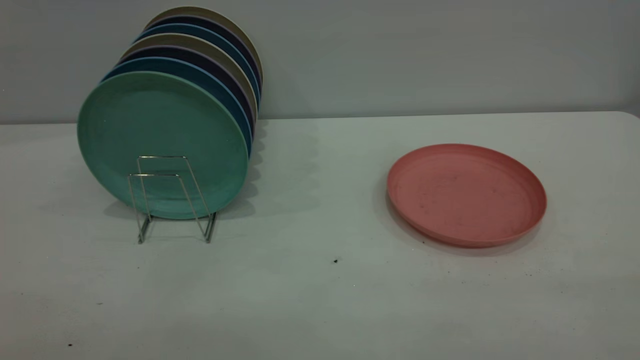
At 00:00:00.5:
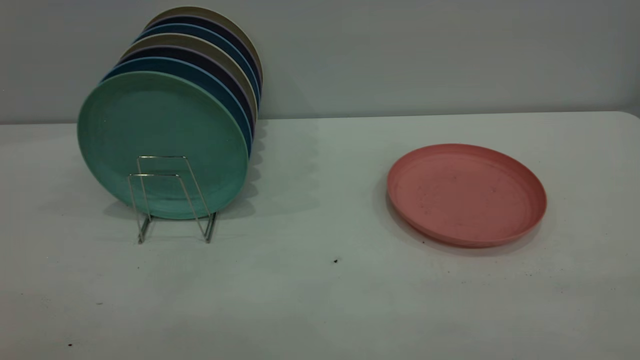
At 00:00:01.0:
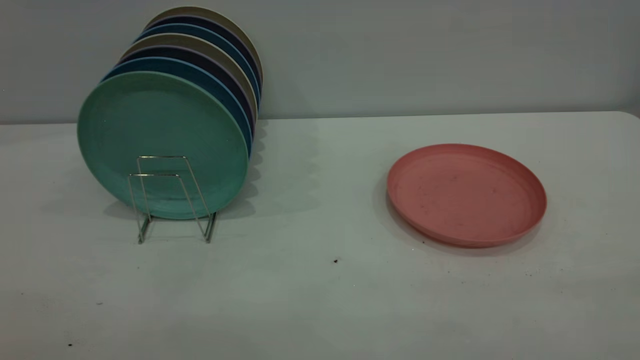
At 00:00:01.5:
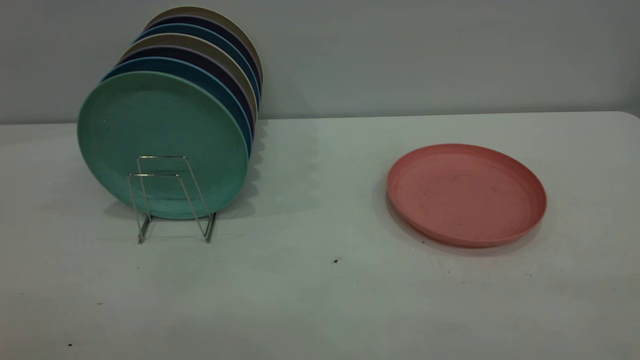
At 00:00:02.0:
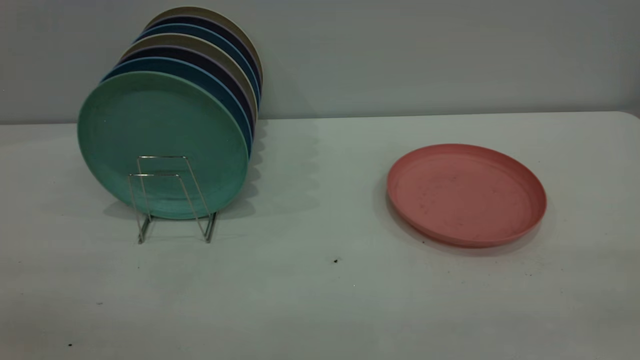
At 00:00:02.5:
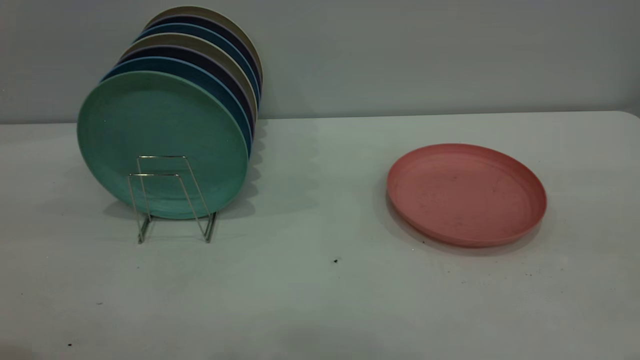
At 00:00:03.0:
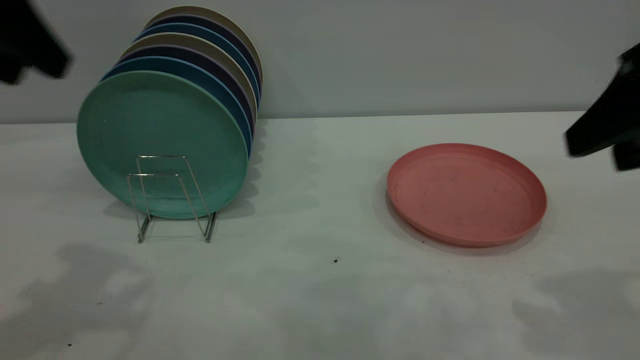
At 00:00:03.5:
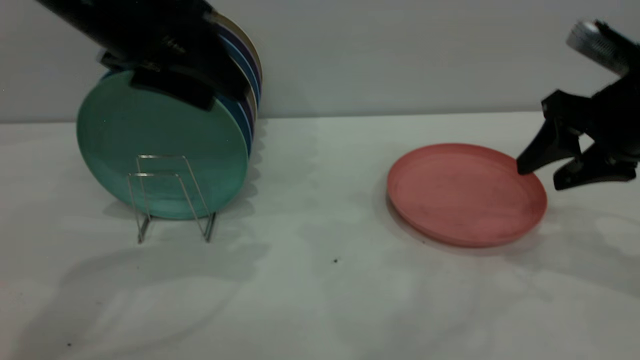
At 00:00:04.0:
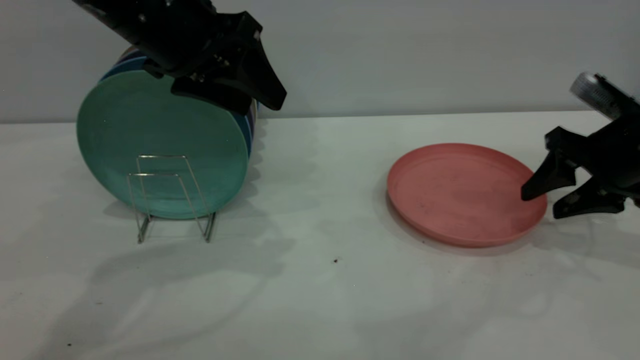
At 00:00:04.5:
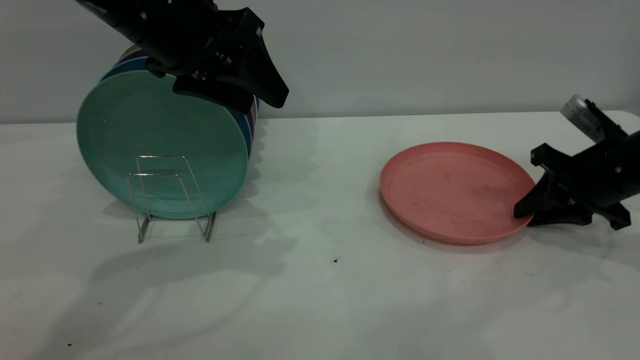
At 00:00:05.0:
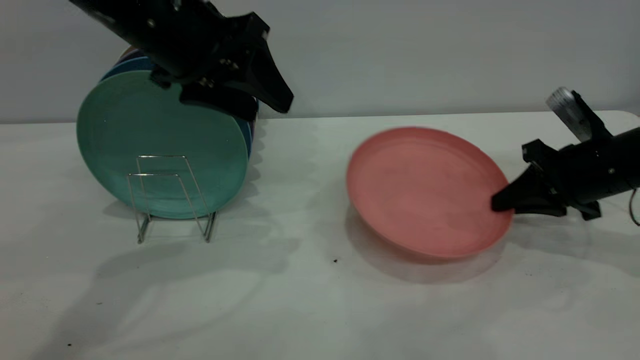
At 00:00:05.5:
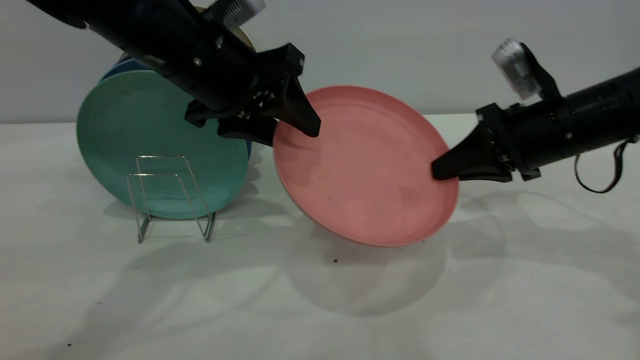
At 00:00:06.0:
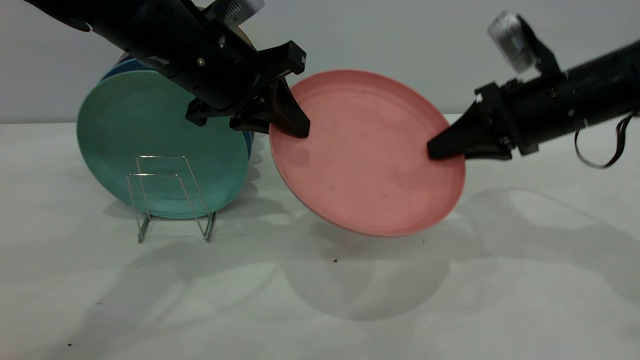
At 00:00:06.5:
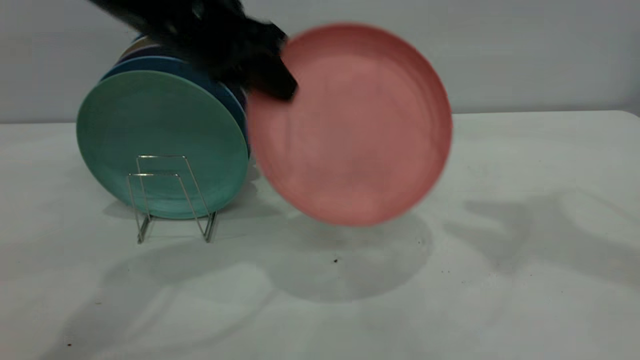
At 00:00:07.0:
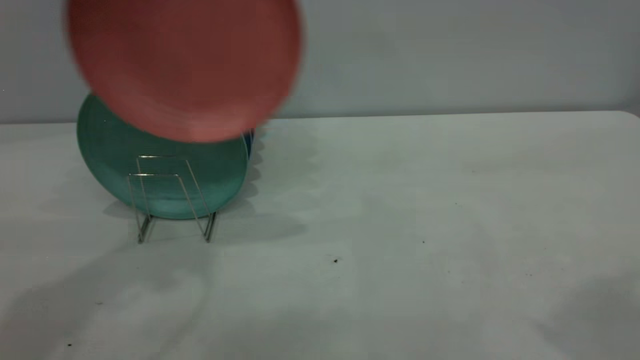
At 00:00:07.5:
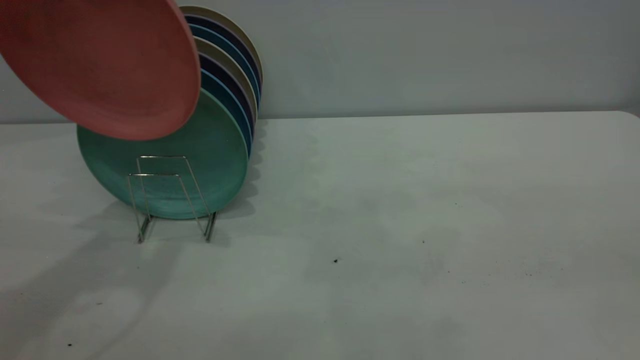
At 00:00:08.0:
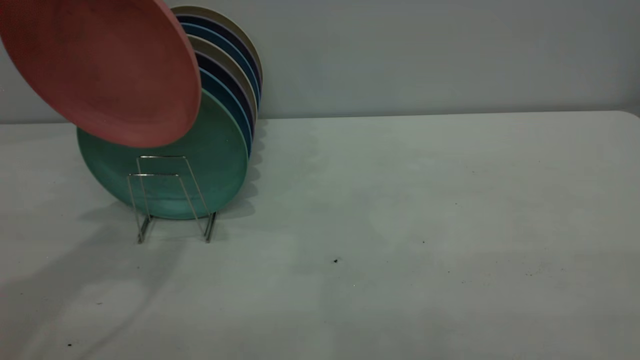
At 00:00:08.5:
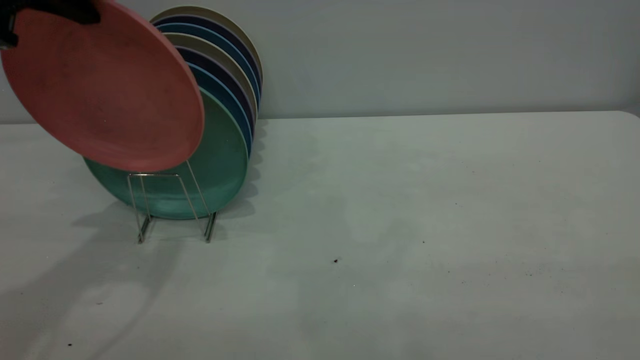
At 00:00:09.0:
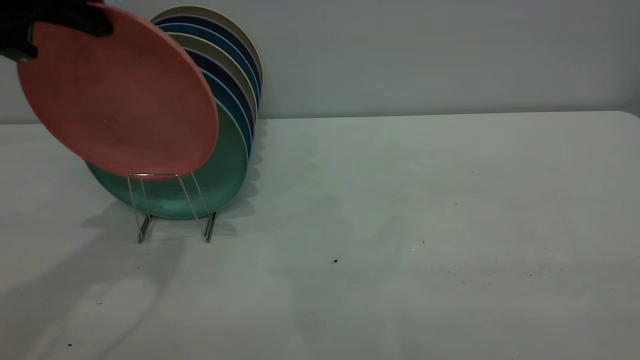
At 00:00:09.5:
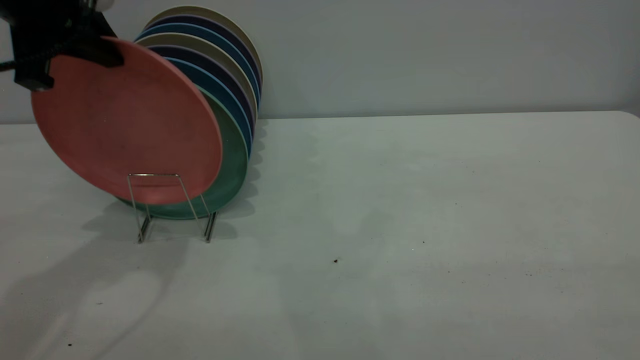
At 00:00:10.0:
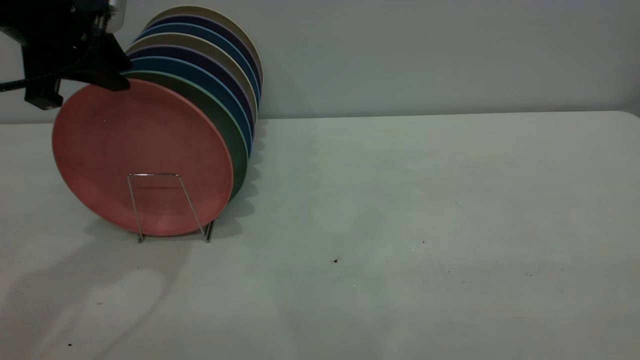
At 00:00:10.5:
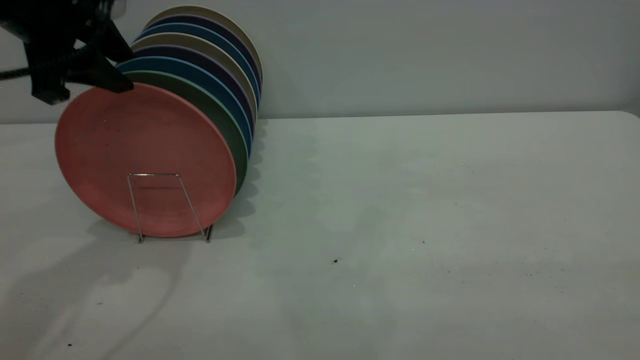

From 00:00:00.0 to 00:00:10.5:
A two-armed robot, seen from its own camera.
Task of the whole recording: the right gripper grasp the pink plate, the right gripper pass the pink plate to the left gripper, and the left gripper place the pink plate on the plate rack.
Step, from 00:00:00.0 to 00:00:05.0: Pick up the plate with the right gripper.
Step, from 00:00:05.5 to 00:00:06.0: Pass the plate from the right gripper to the left gripper.
From 00:00:02.0 to 00:00:04.0: The right gripper is displaced forward and downward by approximately 50 cm. The left gripper is displaced forward and to the right by about 40 cm.
From 00:00:04.0 to 00:00:06.5: The left gripper closes its fingers. Meanwhile the right gripper goes roughly 25 cm upward, and closes, then reopens.
From 00:00:06.5 to 00:00:08.5: The right gripper moves backward, about 35 cm, and closes, while the left gripper travels to the left and upward by some 15 cm.
From 00:00:08.5 to 00:00:10.5: The left gripper opens its fingers.
